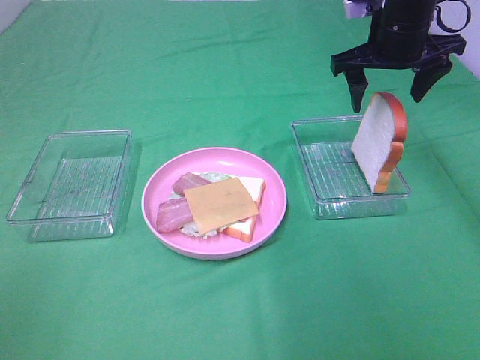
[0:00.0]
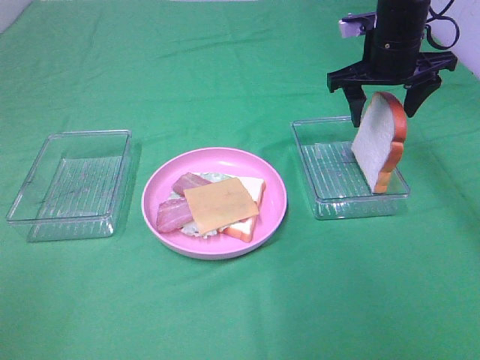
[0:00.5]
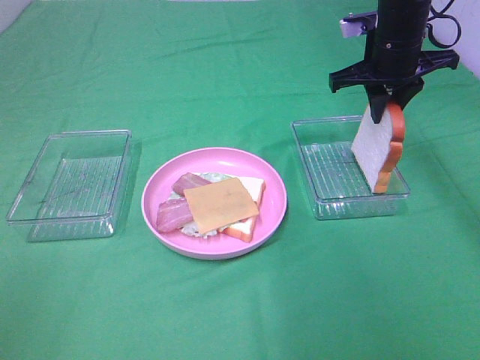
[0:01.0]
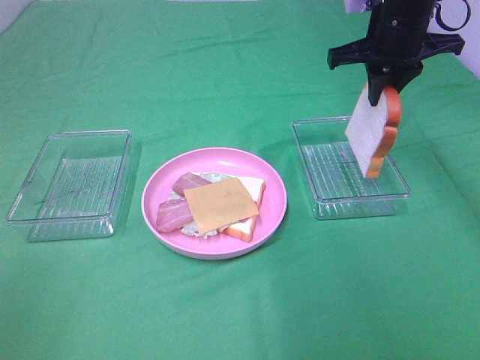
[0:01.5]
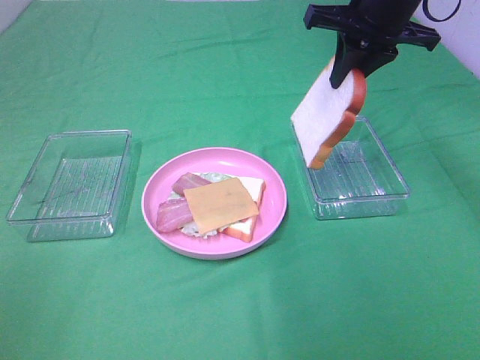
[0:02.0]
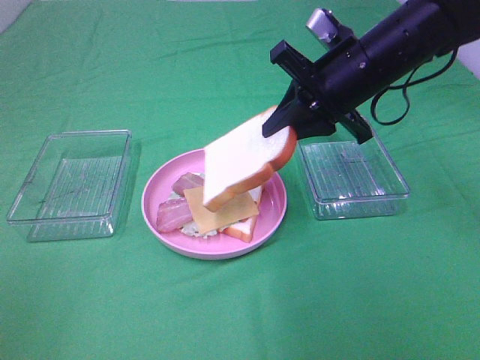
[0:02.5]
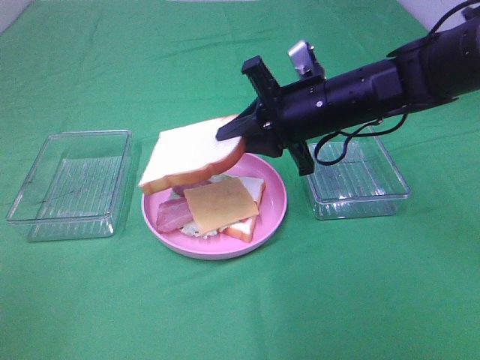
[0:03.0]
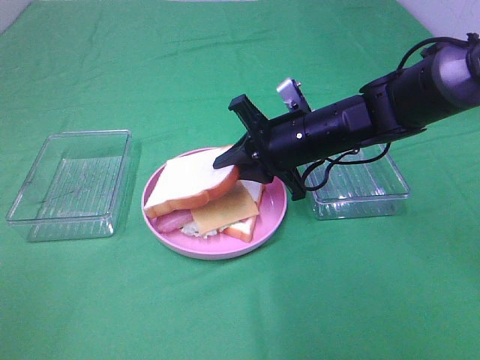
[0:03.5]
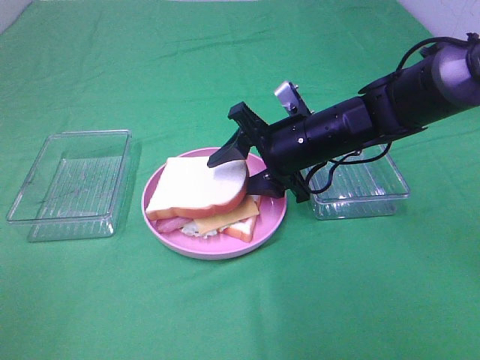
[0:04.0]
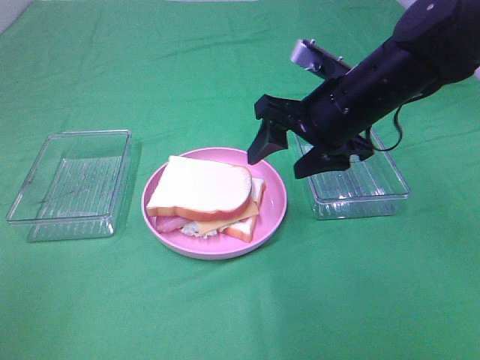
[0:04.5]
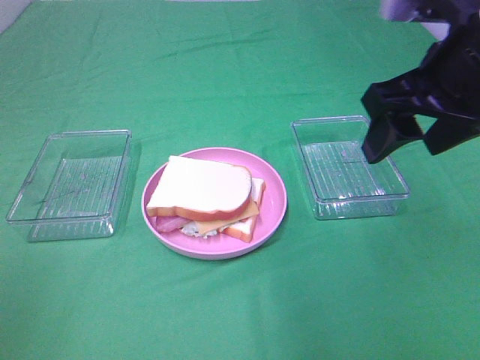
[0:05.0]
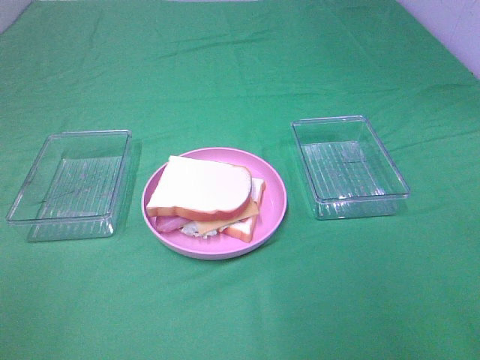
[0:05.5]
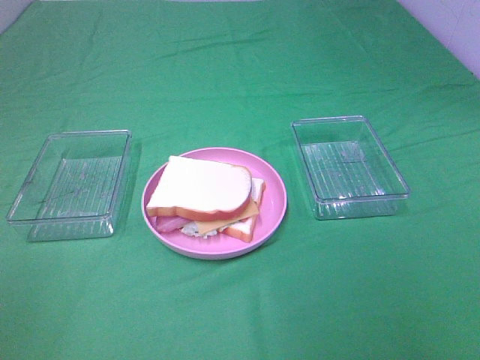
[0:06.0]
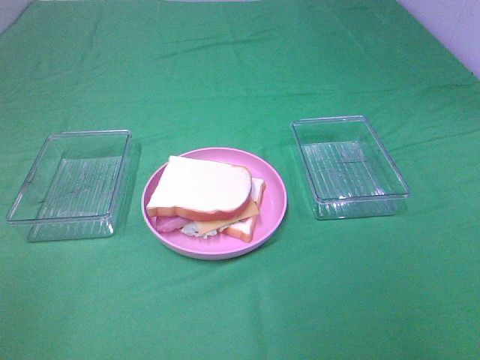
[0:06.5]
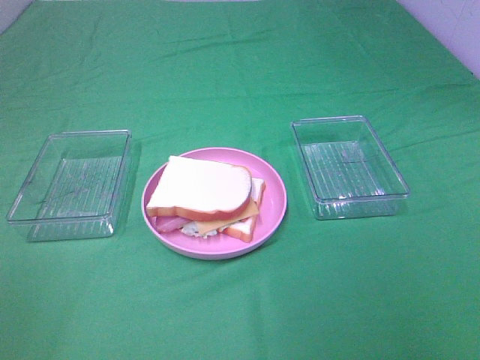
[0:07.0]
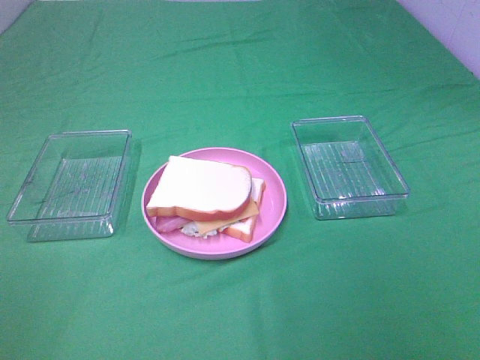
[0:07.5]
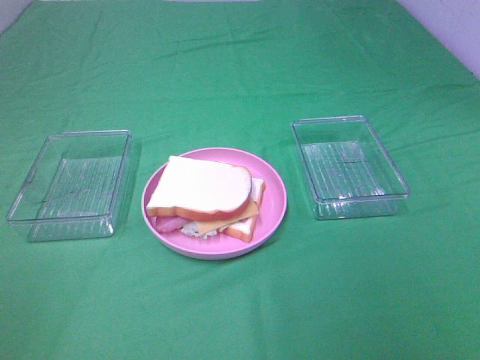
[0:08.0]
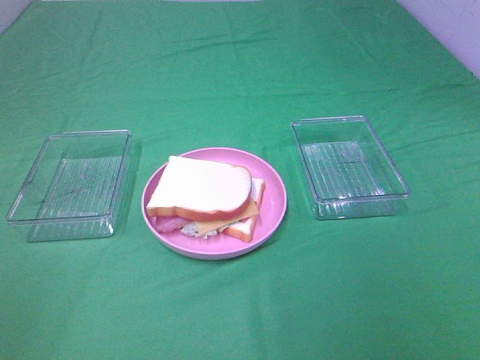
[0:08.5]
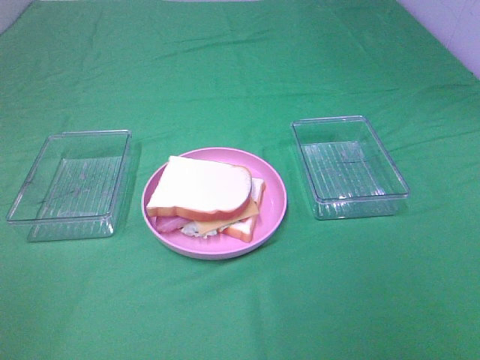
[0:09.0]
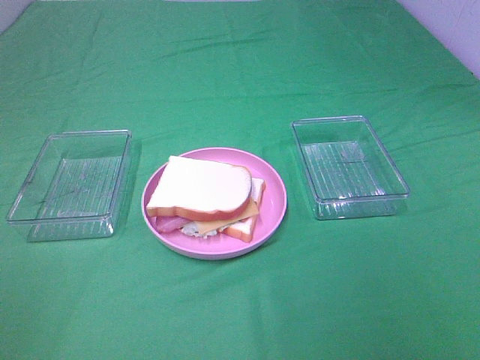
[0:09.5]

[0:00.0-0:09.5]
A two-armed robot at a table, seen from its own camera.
Task of the whole recording: Make sandwiches.
Step, 0:01.5 to 0:04.0: Right hand:place the bread slice on the cheese slice.
0:00.0 to 0:02.0: The right gripper moves approximately 5 cm, and closes up.
0:02.0 to 0:04.0: The right gripper shifts about 15 cm downward, and opens its fingers.
0:04.0 to 0:05.5: The right gripper travels backward, upward and to the right by approximately 35 cm.

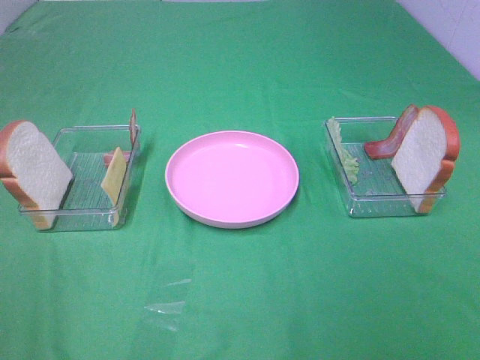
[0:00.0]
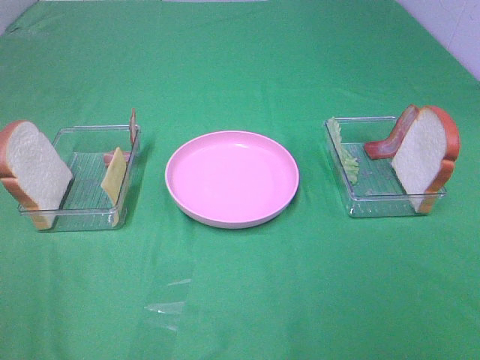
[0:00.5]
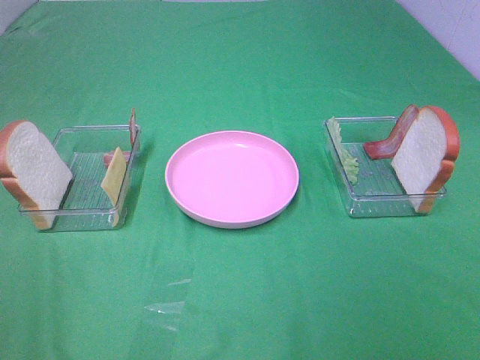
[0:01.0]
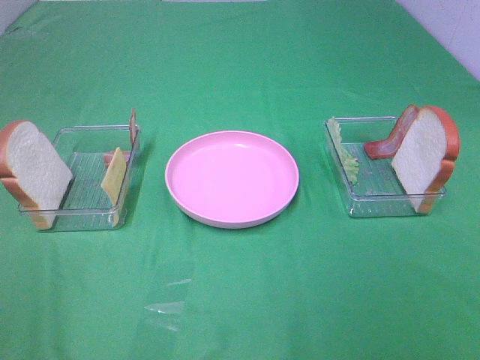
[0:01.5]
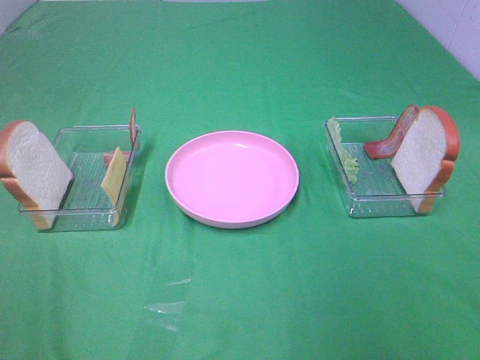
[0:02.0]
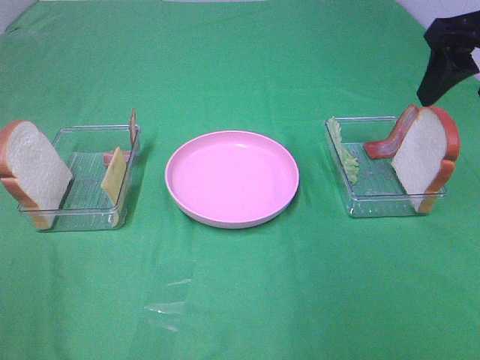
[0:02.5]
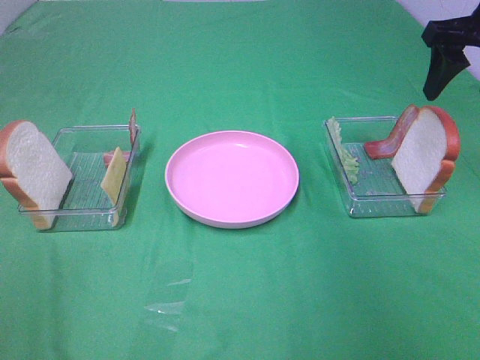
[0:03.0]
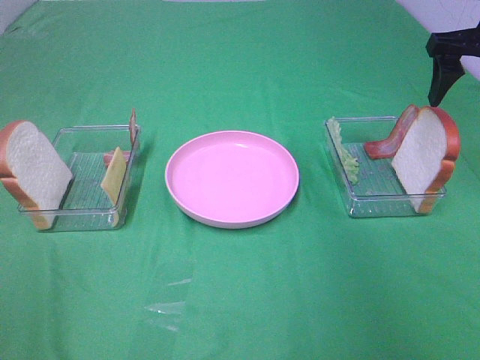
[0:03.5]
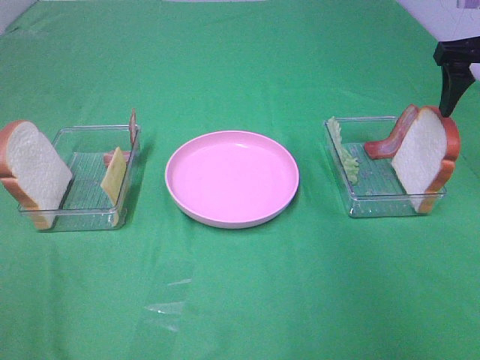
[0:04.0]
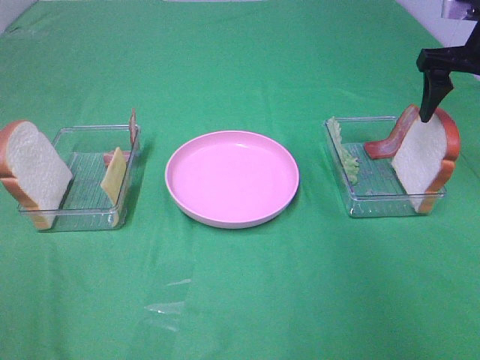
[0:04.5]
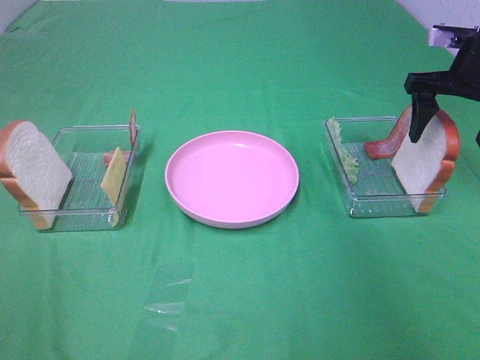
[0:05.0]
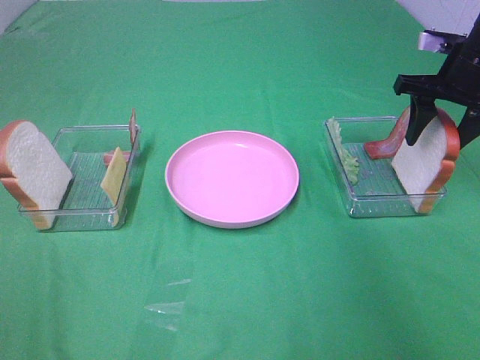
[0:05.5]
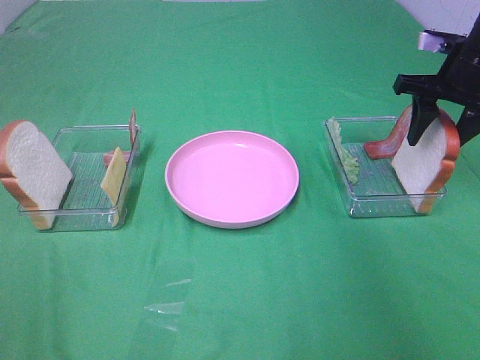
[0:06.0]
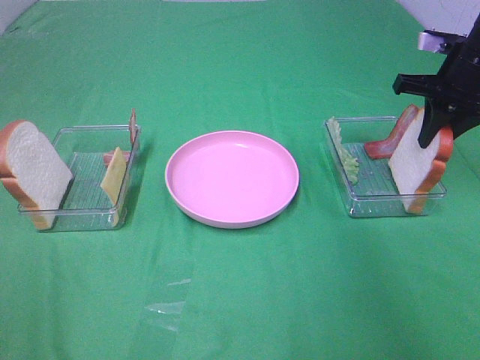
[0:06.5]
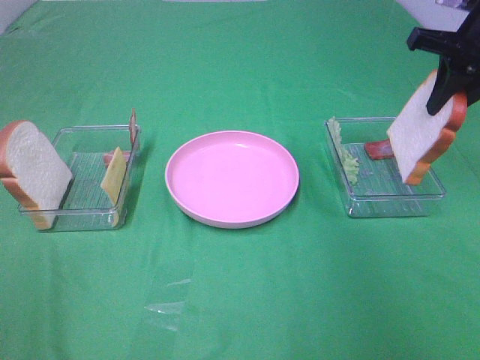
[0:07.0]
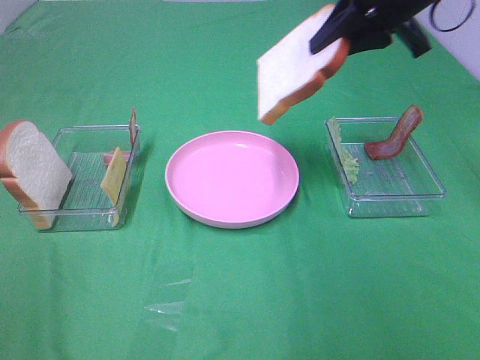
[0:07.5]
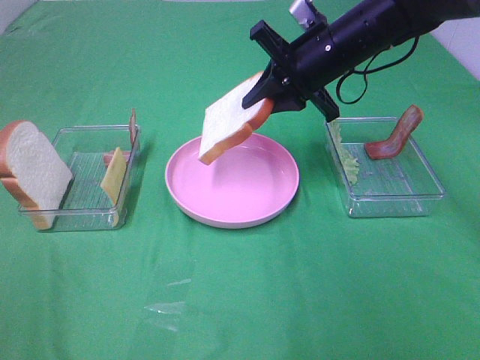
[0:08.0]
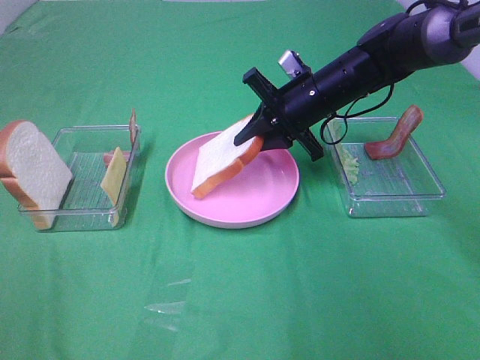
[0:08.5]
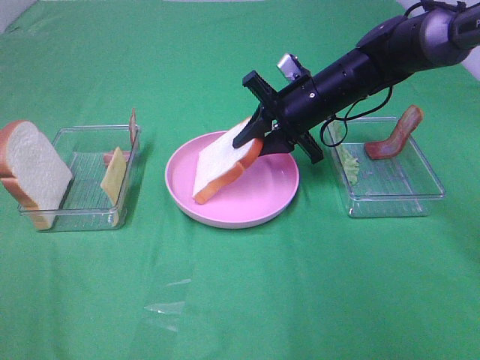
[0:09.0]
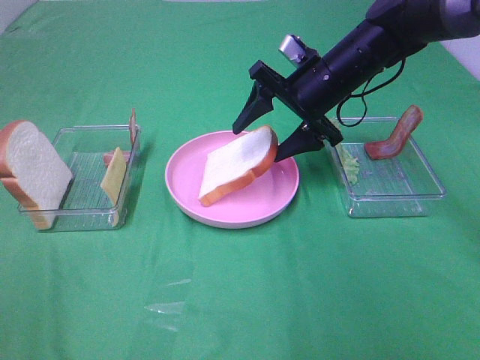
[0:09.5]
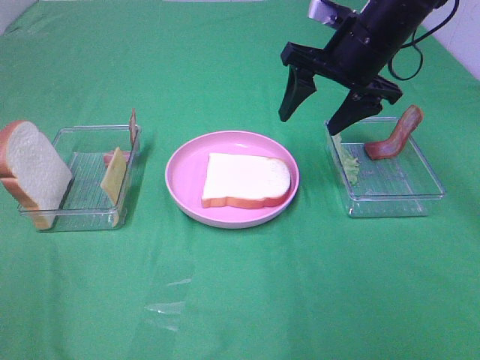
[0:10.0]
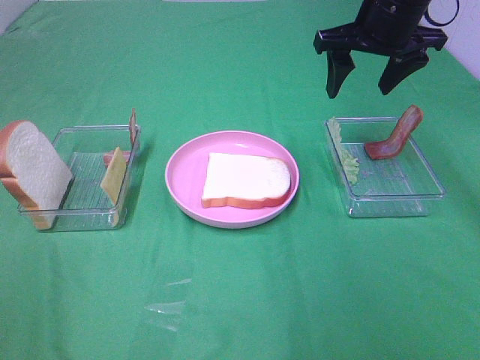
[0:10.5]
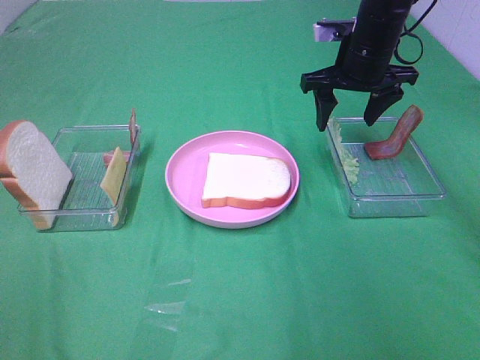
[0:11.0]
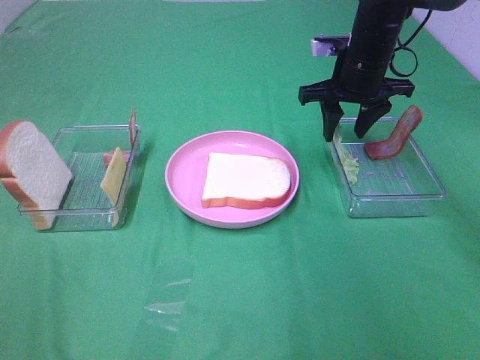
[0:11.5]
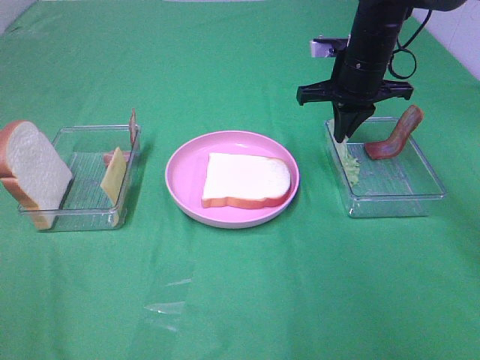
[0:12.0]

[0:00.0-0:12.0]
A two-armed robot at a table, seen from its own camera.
Task of the whole recording: Make sandwiches.
Step, 0:00.0 to 0:06.0: Right hand:grab the bread slice.
Step, 0:06.5 to 0:09.5: Right hand:place the bread slice on the plate.
Step, 0:10.0 to 0:12.0: Right hand:grab the lettuce slice.
0:02.0 to 0:04.0: The right gripper travels forward by roughly 25 cm.
0:04.0 to 0:06.0: The right gripper travels downward by some 5 cm.
0:06.0 to 0:08.0: The right gripper heads to the left, covering about 15 cm, and closes up.
0:08.0 to 0:10.0: The right gripper changes place by roughly 5 cm, and opens its fingers.
0:10.0 to 0:12.0: The right gripper is displaced forward and downward by roughly 10 cm, and closes up.

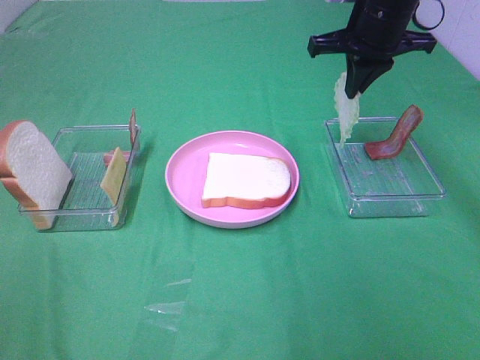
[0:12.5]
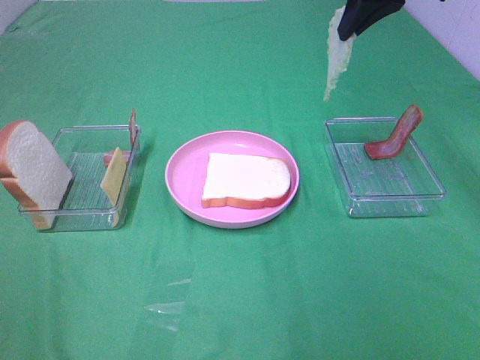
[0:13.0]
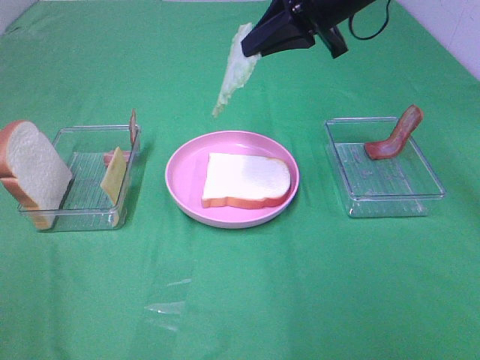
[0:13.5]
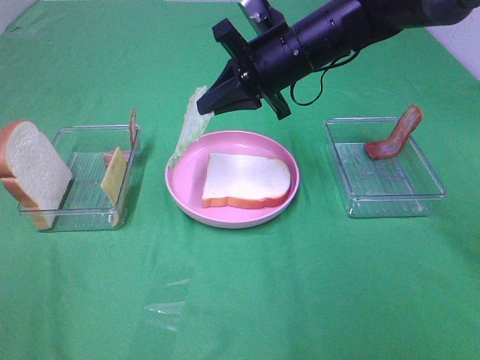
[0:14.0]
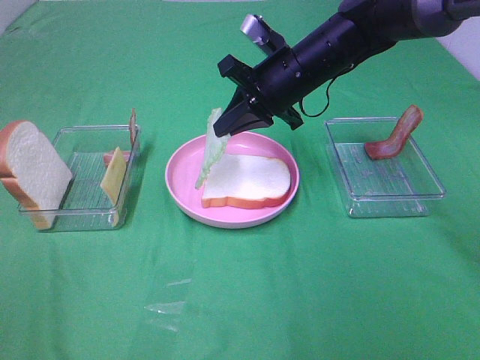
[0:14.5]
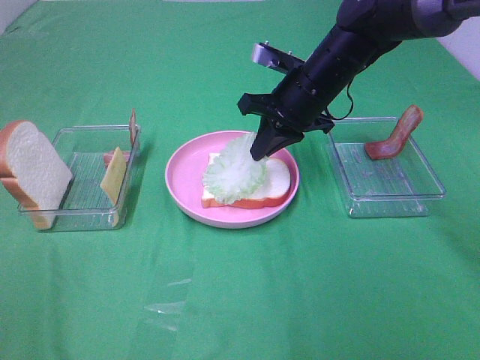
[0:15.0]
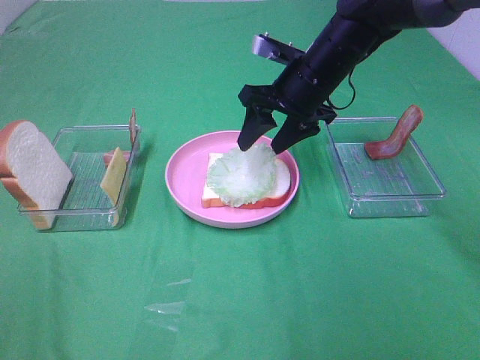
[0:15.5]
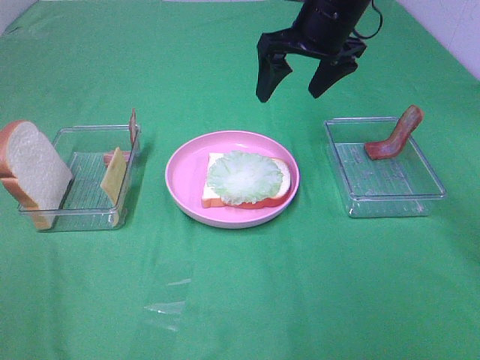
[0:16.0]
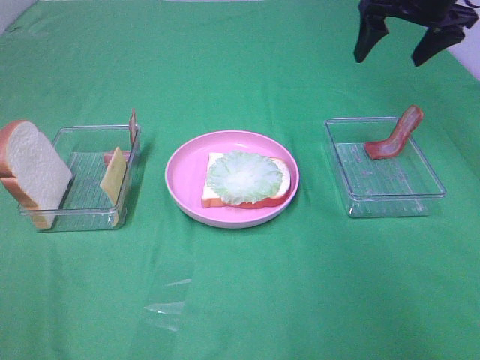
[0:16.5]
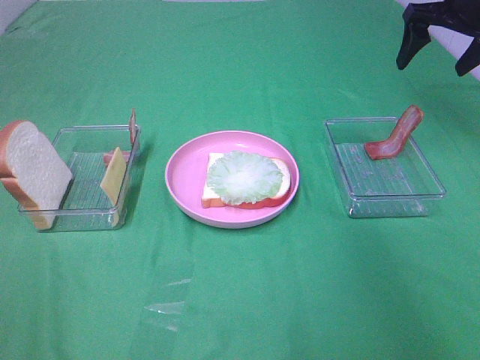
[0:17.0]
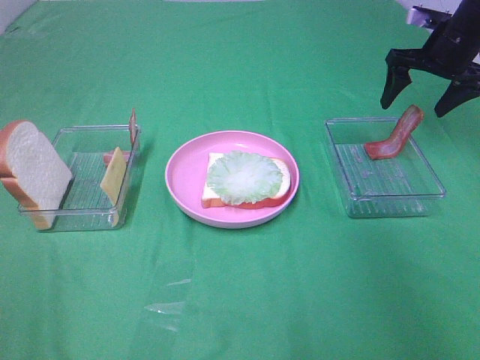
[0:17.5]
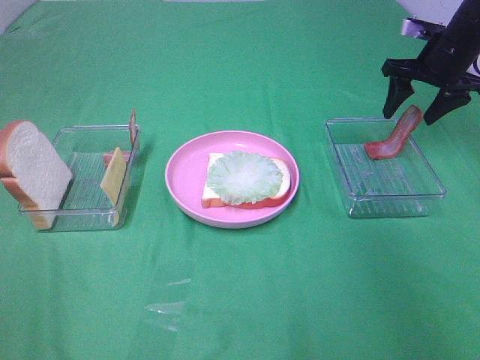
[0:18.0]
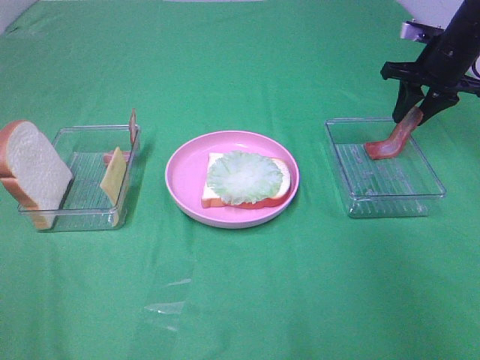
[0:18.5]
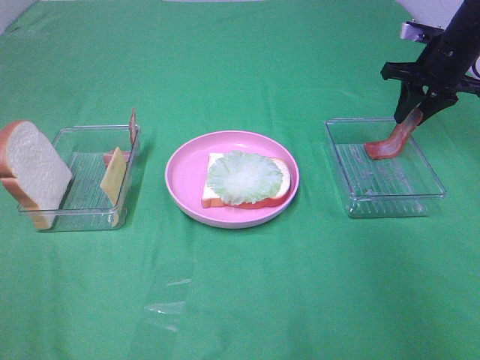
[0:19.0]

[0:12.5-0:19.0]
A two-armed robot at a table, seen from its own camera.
Task of the whole recording: Make sandwiches.
Step, 0:12.5 to 0:15.5: Right hand:place the lettuce slice on the bread slice.
0:12.5 to 0:14.5: The right gripper travels to the left and downward by some 10 cm.
0:14.5 to 0:17.0: The right gripper travels to the right by some 25 cm, and opens its fingers.
0:17.0 to 0:19.0: The right gripper shifts approximately 10 cm downward, and closes its fingers.
